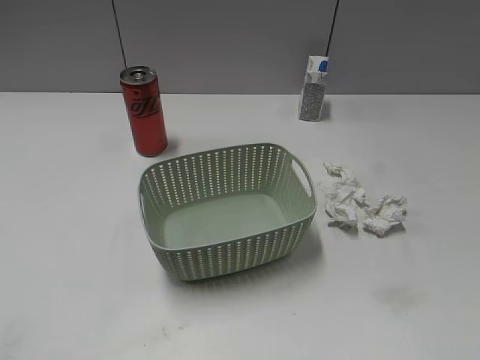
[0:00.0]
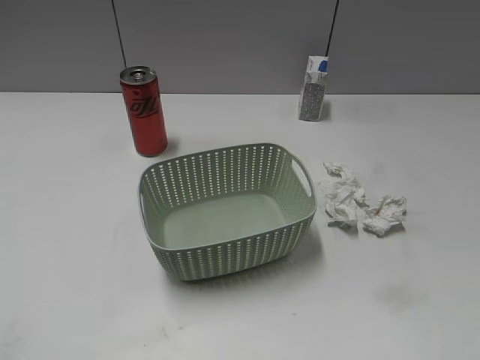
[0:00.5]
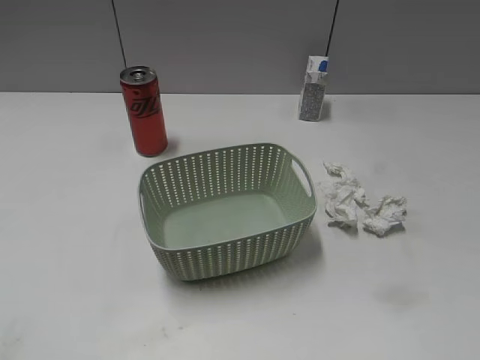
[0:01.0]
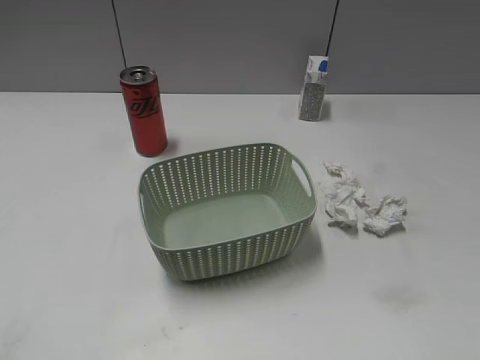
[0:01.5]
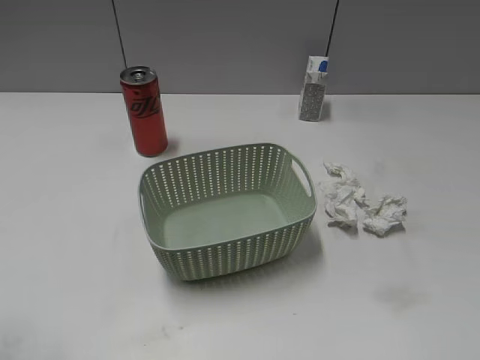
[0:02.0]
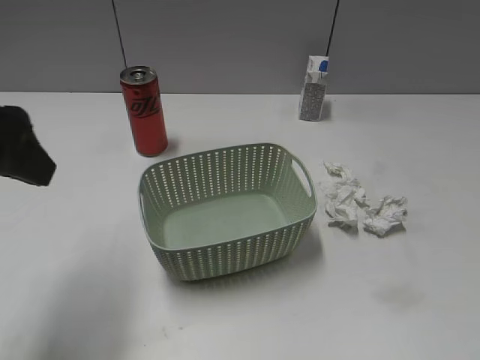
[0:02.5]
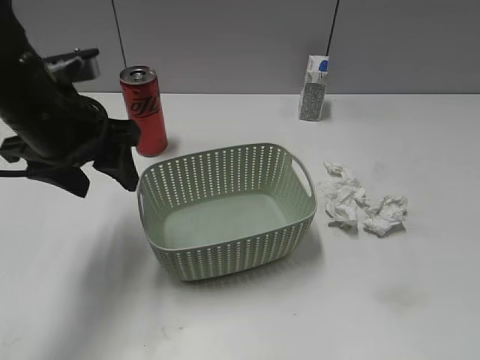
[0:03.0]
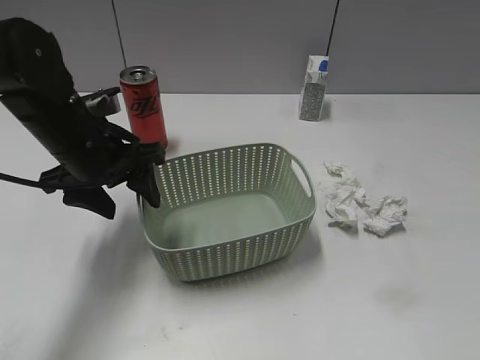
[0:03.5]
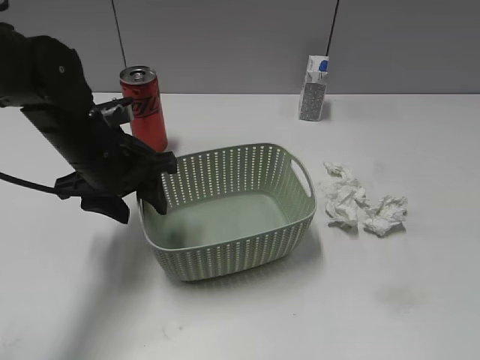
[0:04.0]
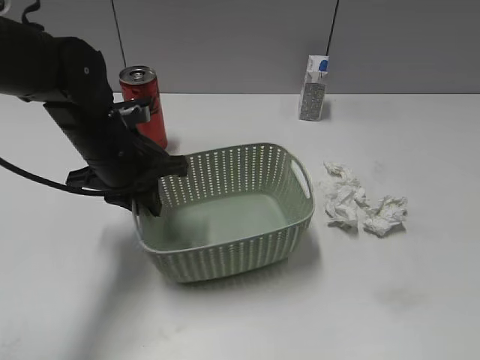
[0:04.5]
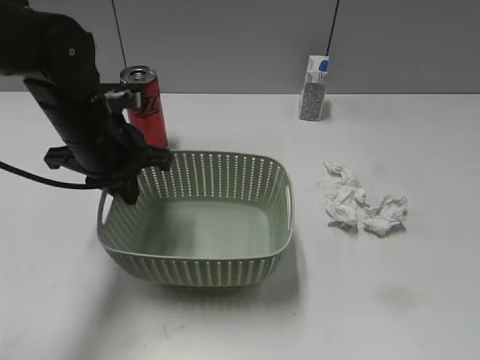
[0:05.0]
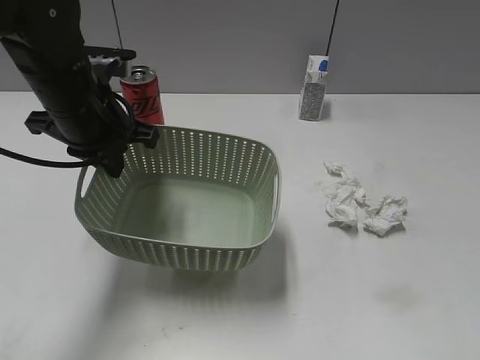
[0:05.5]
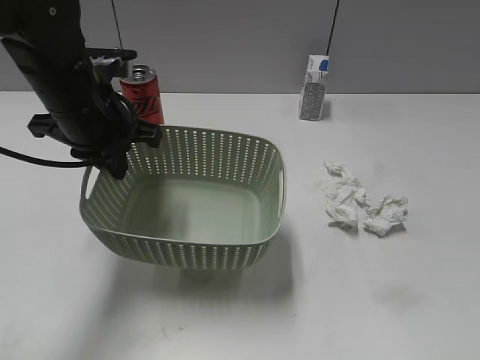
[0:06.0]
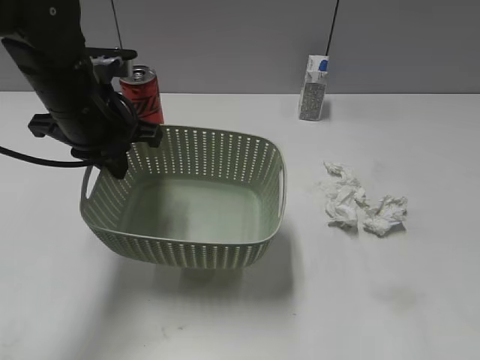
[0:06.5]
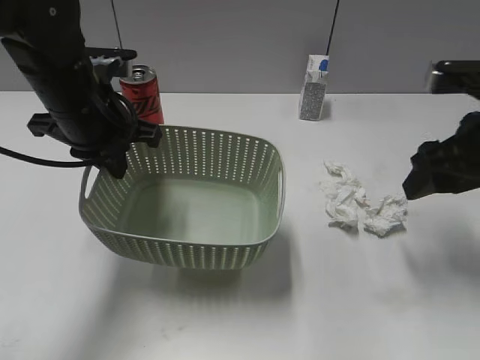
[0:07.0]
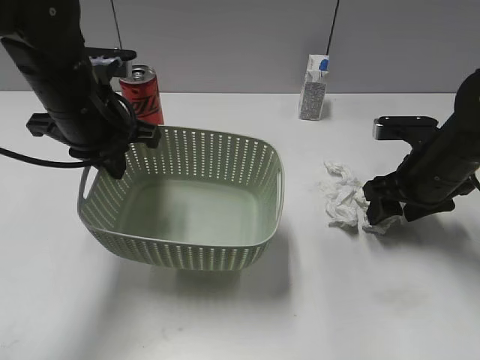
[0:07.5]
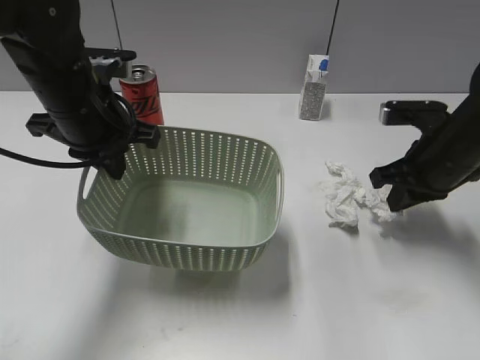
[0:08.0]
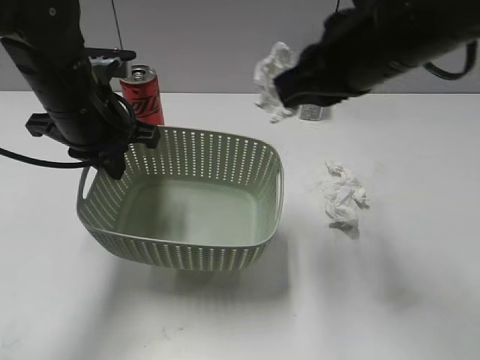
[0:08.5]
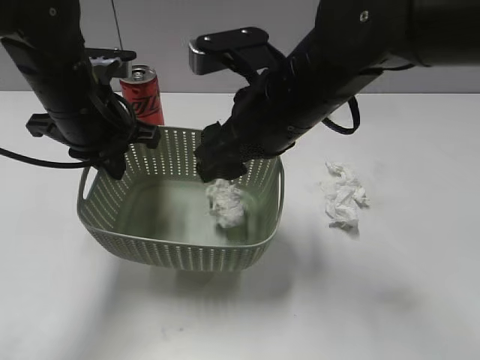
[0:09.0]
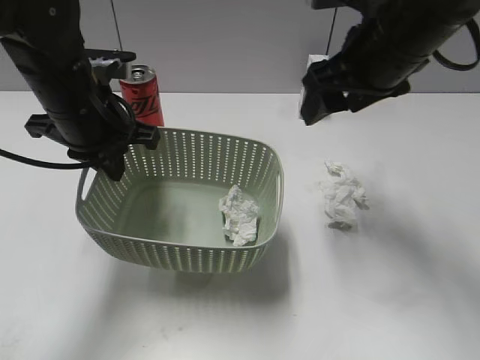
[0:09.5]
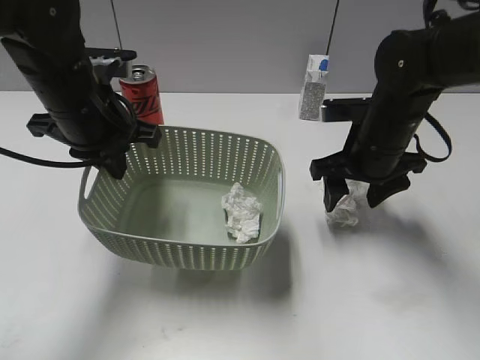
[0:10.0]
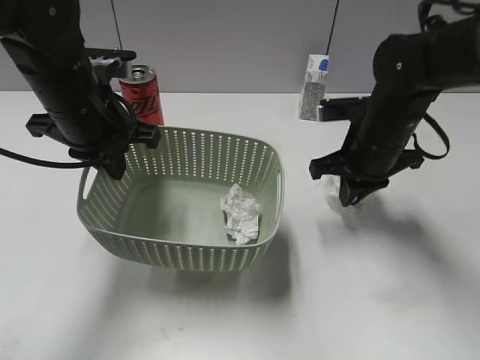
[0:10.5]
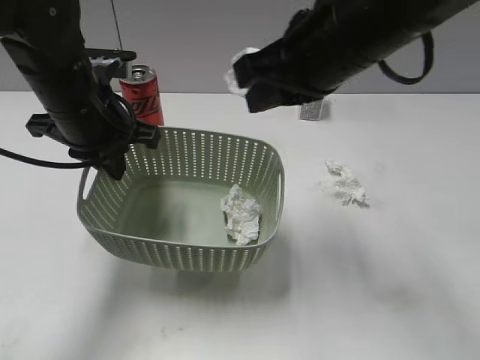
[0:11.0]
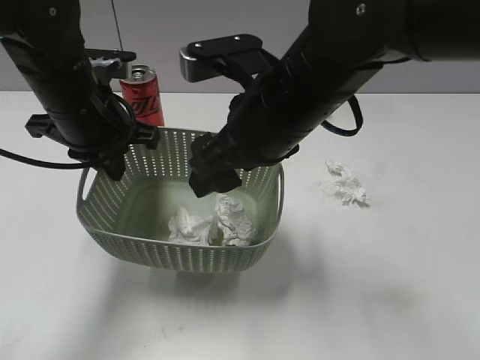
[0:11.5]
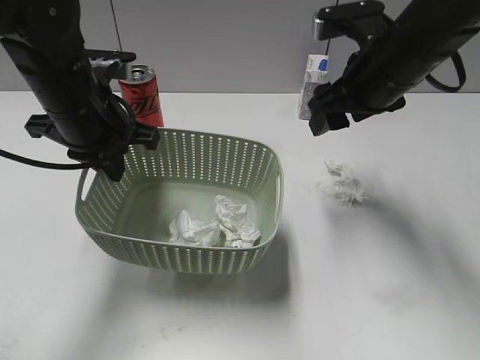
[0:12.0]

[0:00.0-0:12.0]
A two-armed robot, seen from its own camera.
Step, 0:00.0 to 0:04.5: Grasp the basket with left gripper.
Step, 0:05.0 to 0:06.0: Lift the basket with left gripper.
Step, 0:06.5 to 0:07.5: Grasp the waste paper with right gripper.
Step, 0:08.0 to 0:09.0: Place the waste paper in the basket with right gripper.
Step, 0:09.5 to 0:10.5: Grasp the waste paper with right gripper.
Step, 0:11.0 to 0:11.5: Place the waste paper in the basket with right gripper.
0:02.0 to 0:04.0: The left gripper heads forward, downward and to the right, covering some 30 cm.
0:04.0 to 0:06.0: The left gripper moves upward, approximately 5 cm, and closes its fingers.
0:06.0 to 0:08.0: The right gripper goes about 30 cm forward, and closes up.
0:08.0 to 0:10.0: The right gripper shifts about 5 cm to the left, and opens its fingers.
0:10.0 to 0:12.0: The right gripper moves upward, some 10 cm, and closes, then reopens.

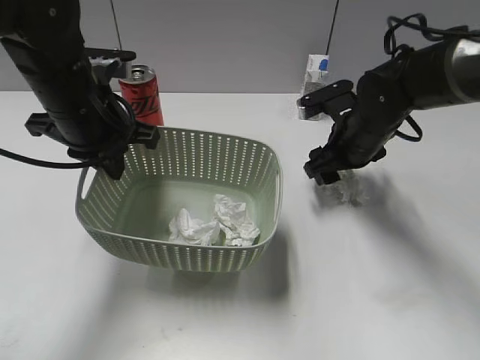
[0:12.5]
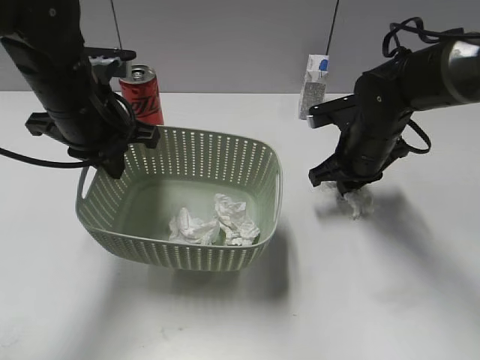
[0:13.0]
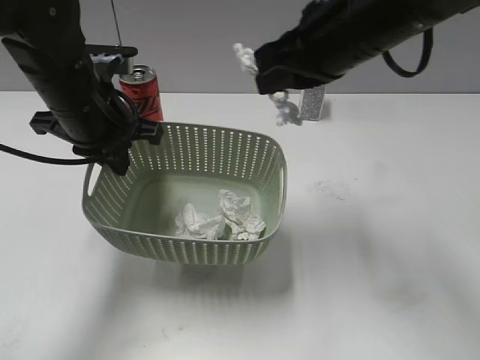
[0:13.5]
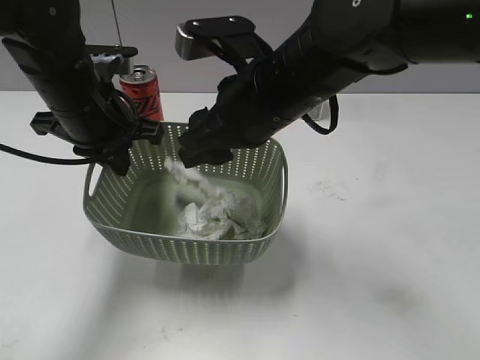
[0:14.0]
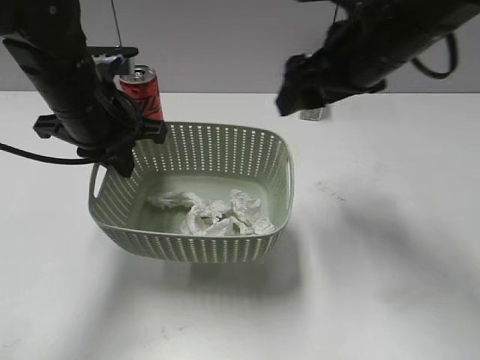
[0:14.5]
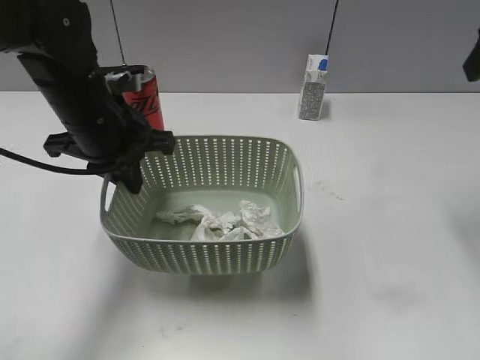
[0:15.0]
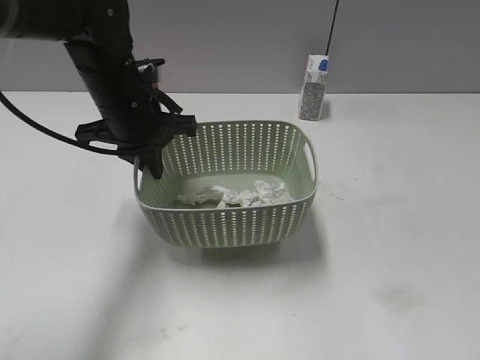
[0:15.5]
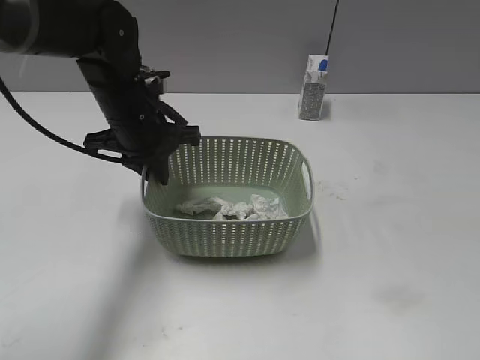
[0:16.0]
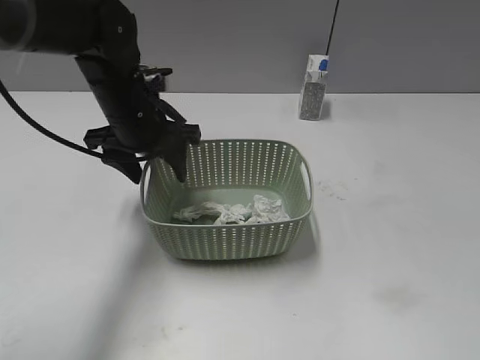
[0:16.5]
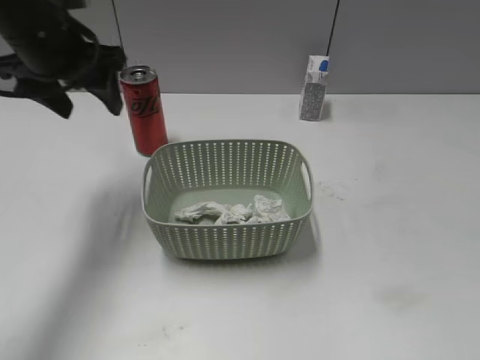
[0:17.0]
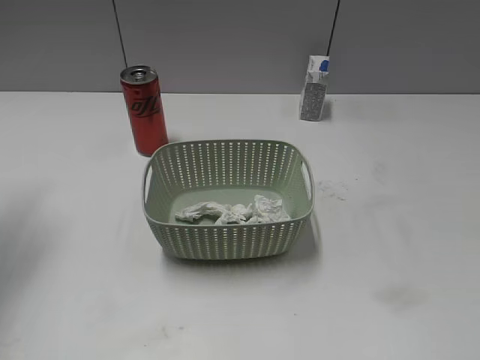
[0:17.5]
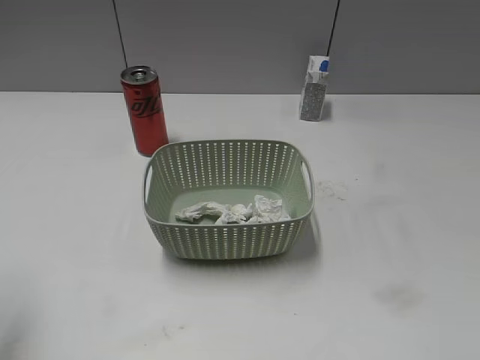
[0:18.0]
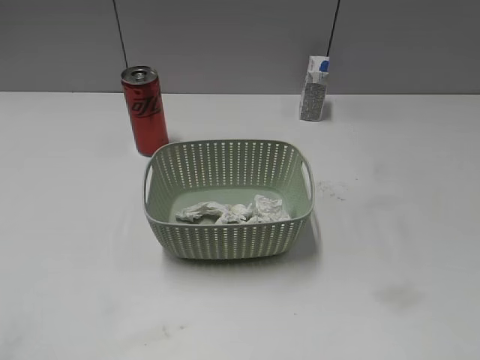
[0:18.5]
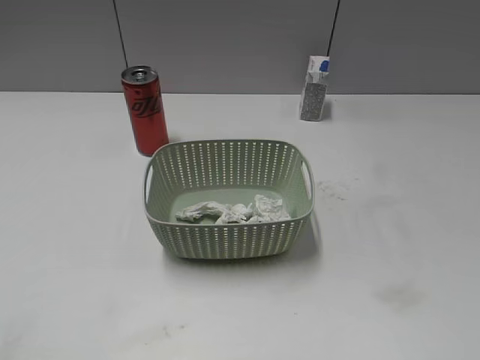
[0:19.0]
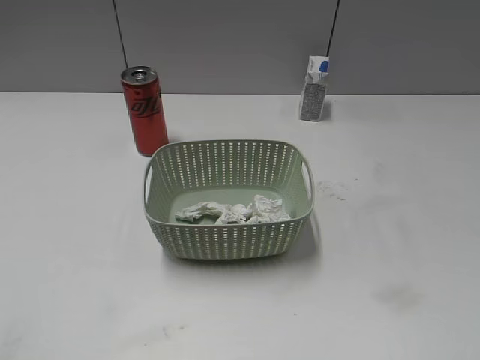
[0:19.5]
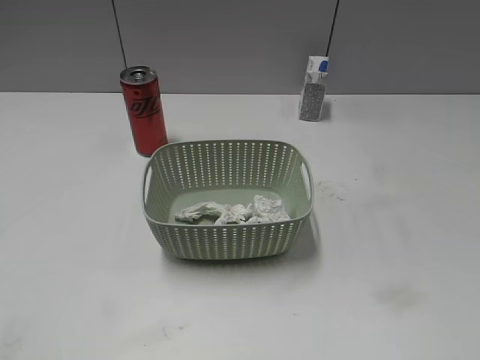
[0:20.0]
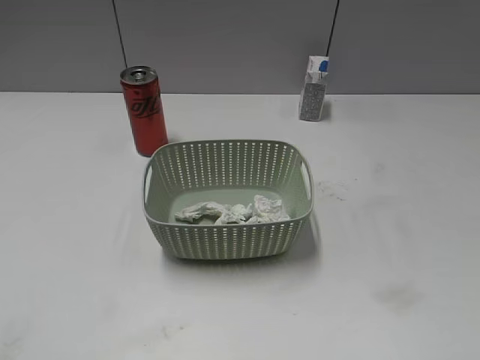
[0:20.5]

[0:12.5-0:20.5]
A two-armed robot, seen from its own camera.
Step, 0:13.5 to 0:14.0: Place the waste paper in the basket with right gripper.
Step, 0:14.5 to 0:16.5: Place the basket on the table with left gripper.
0:12.5 to 0:14.5: The right gripper shifts approximately 15 cm upward and backward, and closes, then reopens.
0:14.5 to 0:16.5: The left gripper shifts by approximately 5 cm, and opens; the right gripper travels backward and to the right by about 35 cm.
0:16.5 to 0:18.5: The left gripper goes some 35 cm backward and to the left.

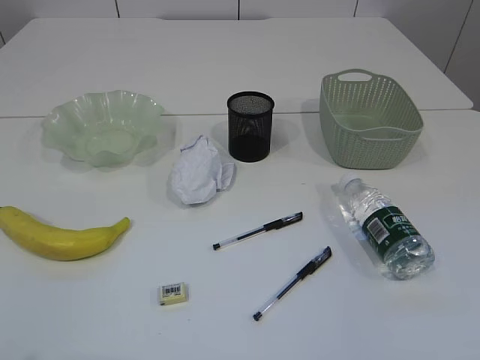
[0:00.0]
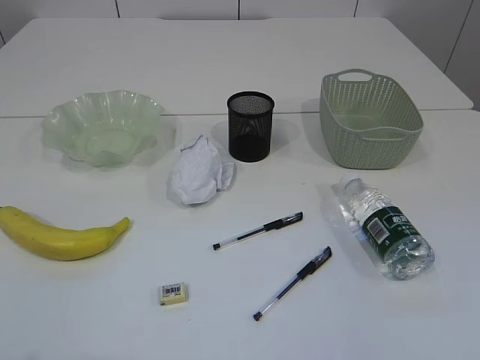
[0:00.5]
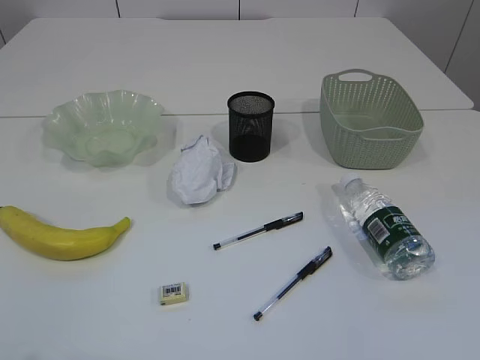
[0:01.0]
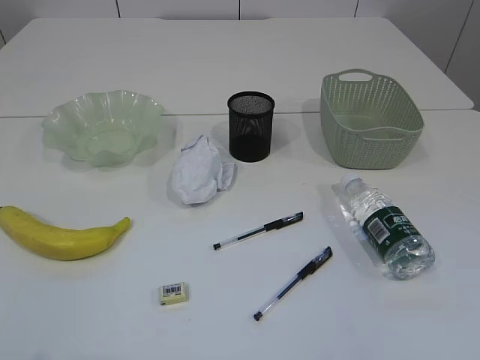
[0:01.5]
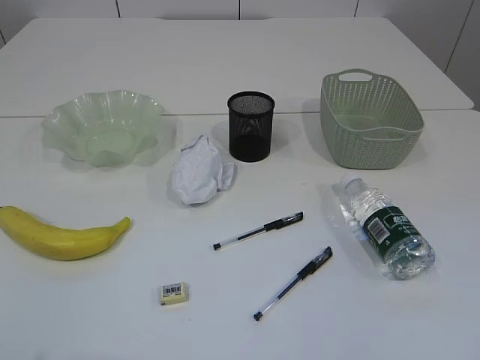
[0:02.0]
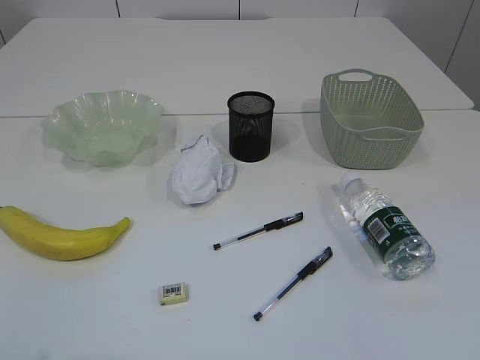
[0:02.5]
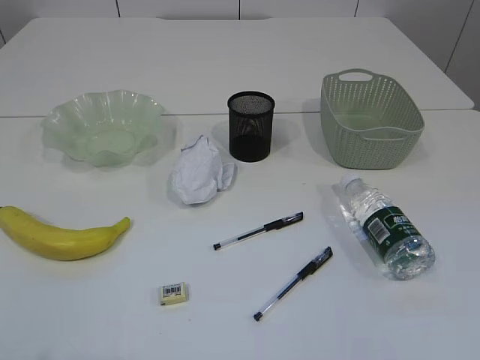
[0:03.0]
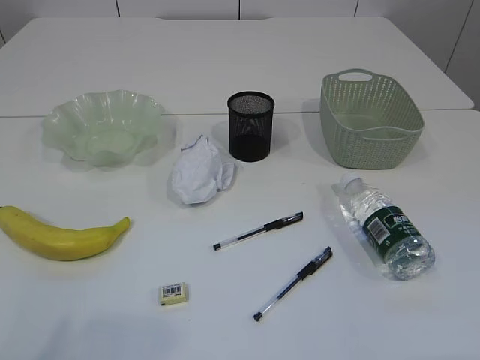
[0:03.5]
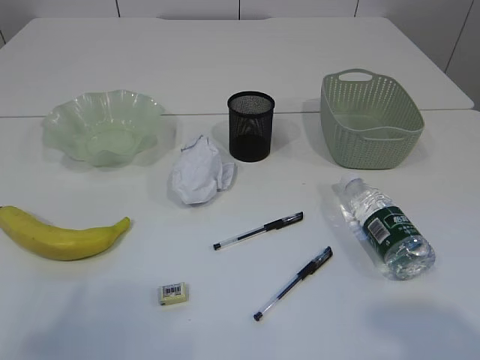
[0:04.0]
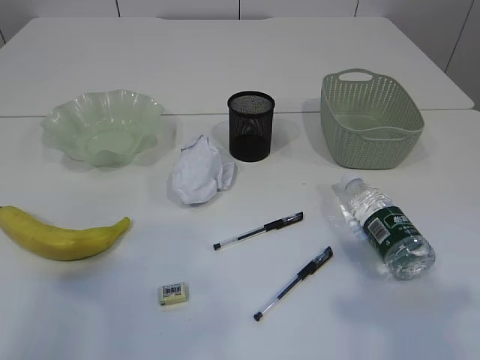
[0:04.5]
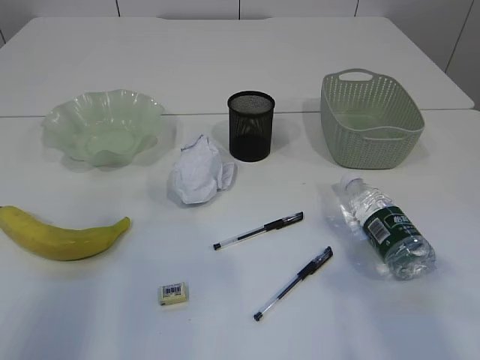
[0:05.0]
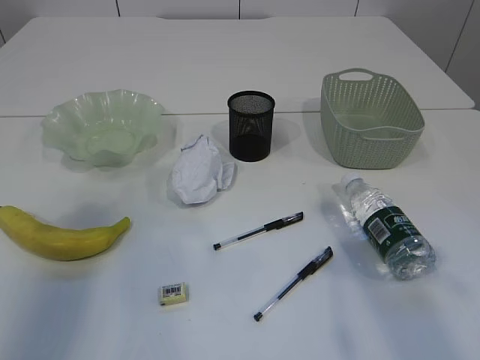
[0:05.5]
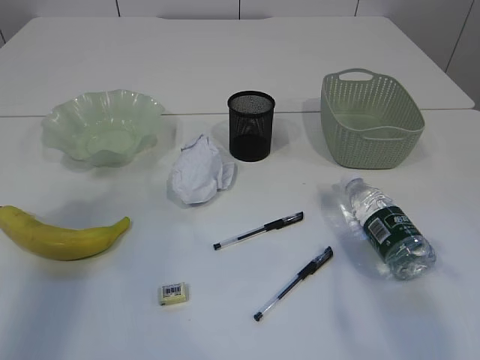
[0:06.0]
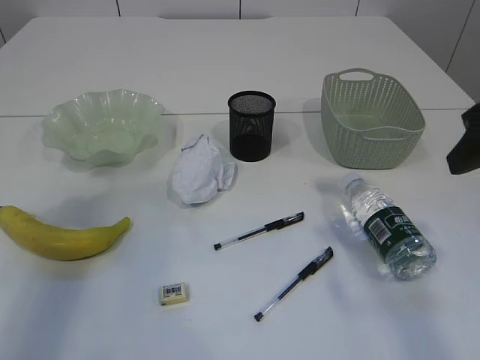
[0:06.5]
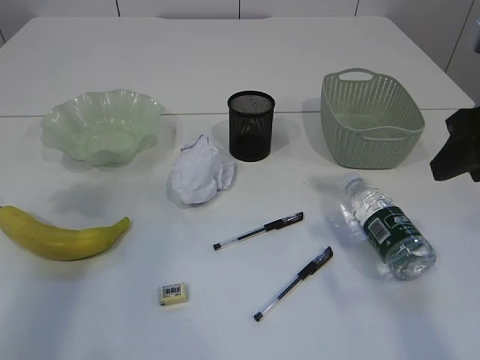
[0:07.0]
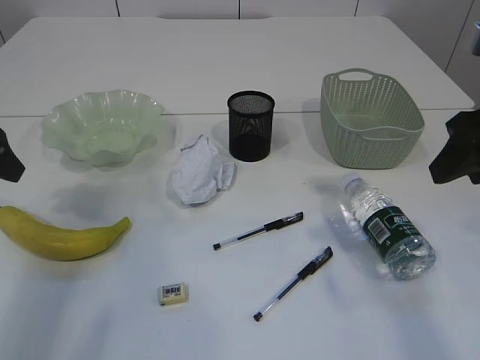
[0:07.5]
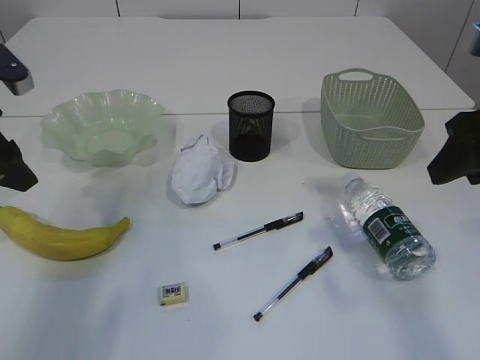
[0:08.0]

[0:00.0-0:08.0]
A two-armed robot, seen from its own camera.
0:02.0 to 0:04.0: The left gripper moves forward, some 5 cm.
0:04.0 to 0:06.0: The grippers both shift forward by roughly 20 cm.
0:06.0 to 0:08.0: The grippers both shift forward by approximately 5 cm.
